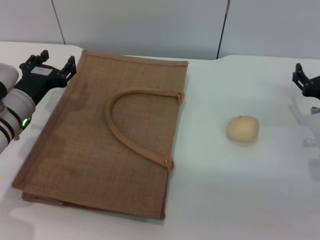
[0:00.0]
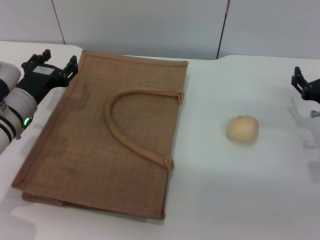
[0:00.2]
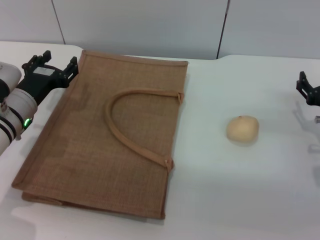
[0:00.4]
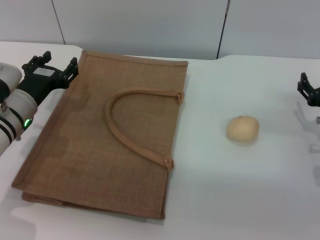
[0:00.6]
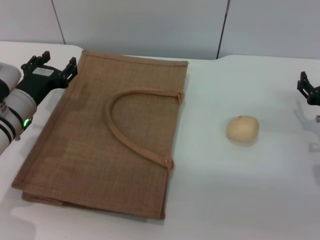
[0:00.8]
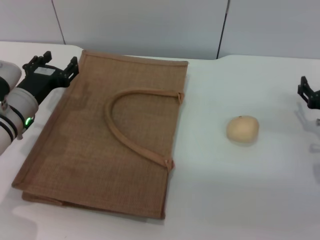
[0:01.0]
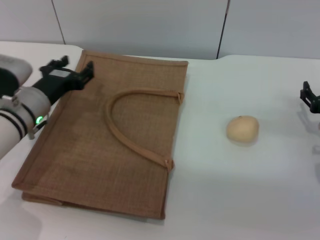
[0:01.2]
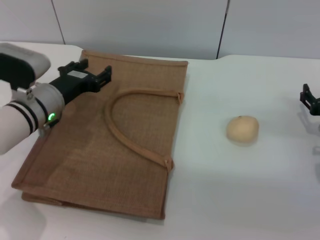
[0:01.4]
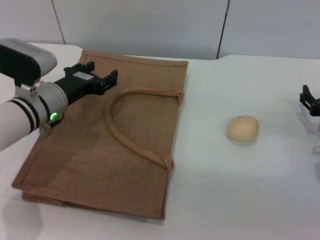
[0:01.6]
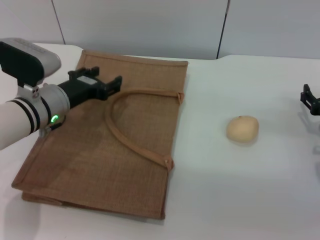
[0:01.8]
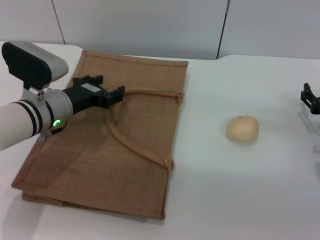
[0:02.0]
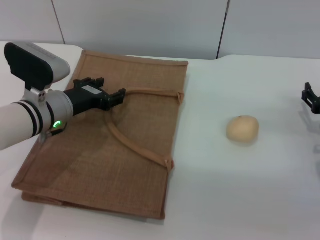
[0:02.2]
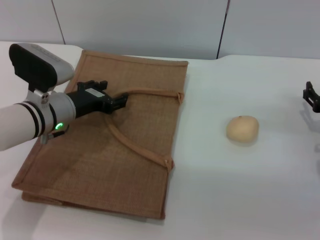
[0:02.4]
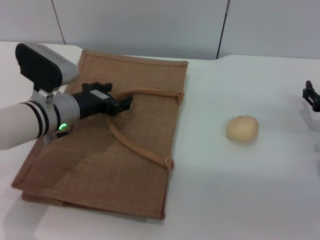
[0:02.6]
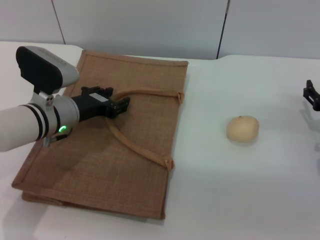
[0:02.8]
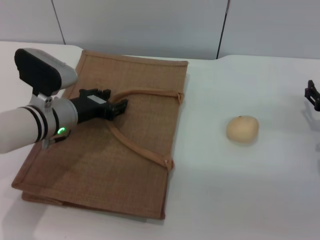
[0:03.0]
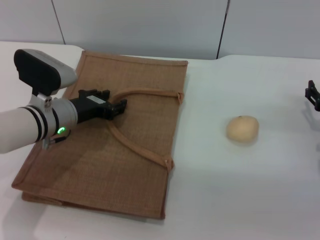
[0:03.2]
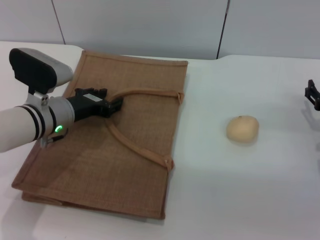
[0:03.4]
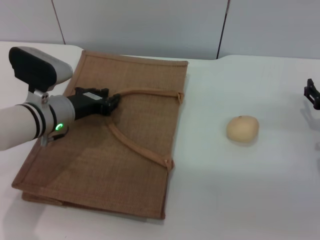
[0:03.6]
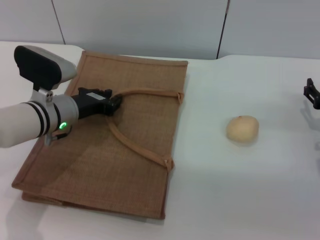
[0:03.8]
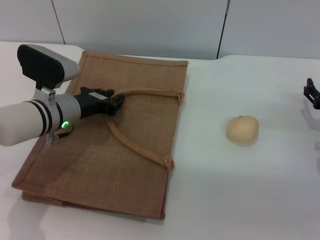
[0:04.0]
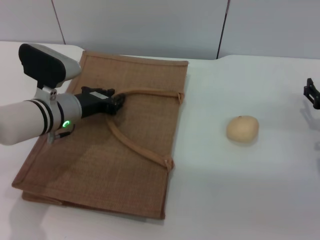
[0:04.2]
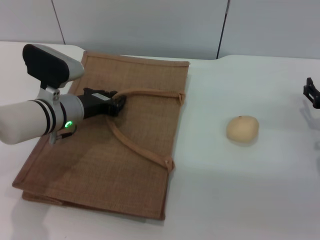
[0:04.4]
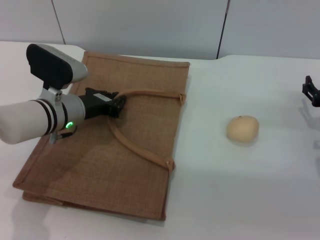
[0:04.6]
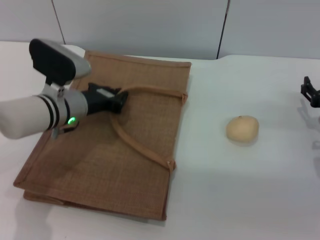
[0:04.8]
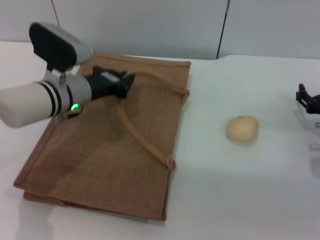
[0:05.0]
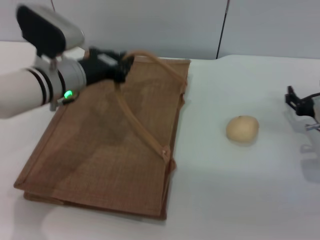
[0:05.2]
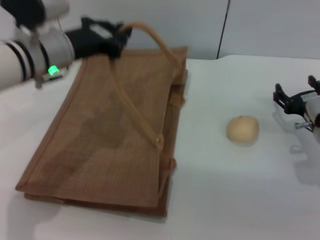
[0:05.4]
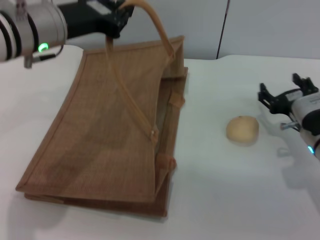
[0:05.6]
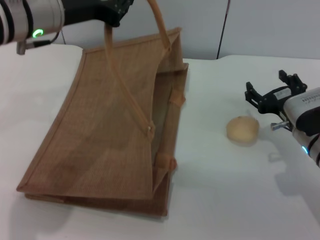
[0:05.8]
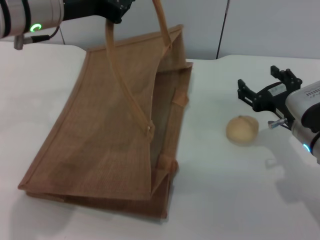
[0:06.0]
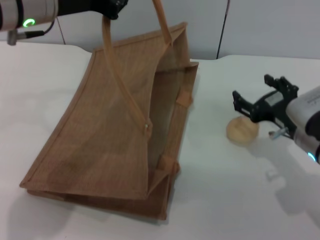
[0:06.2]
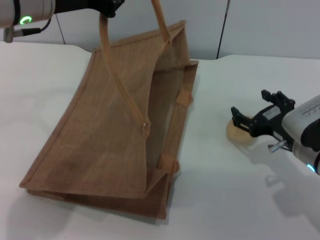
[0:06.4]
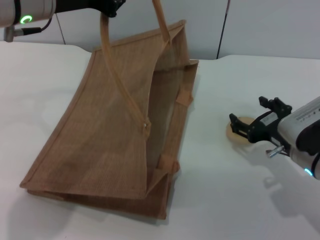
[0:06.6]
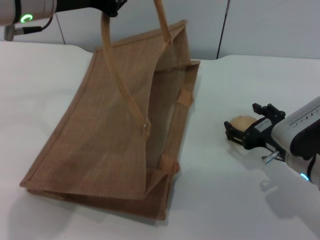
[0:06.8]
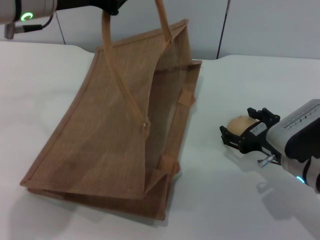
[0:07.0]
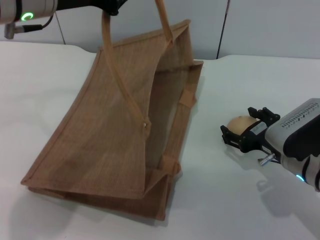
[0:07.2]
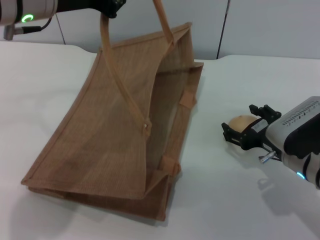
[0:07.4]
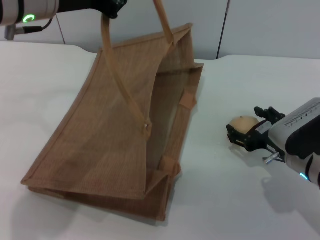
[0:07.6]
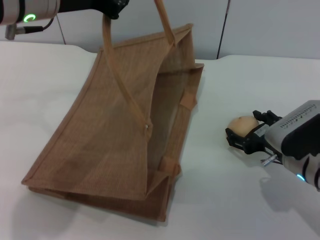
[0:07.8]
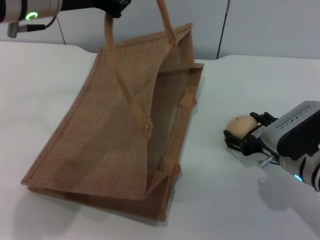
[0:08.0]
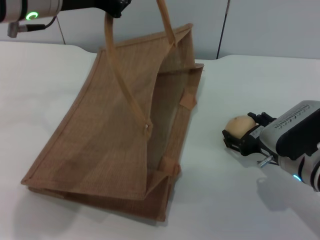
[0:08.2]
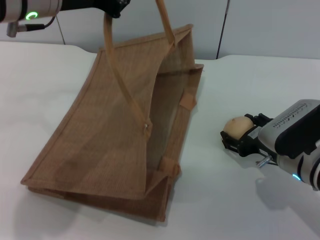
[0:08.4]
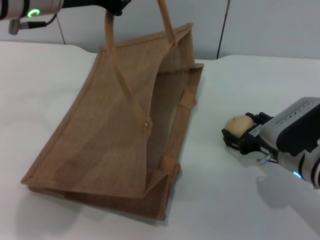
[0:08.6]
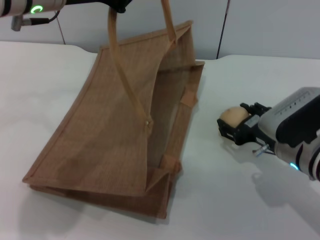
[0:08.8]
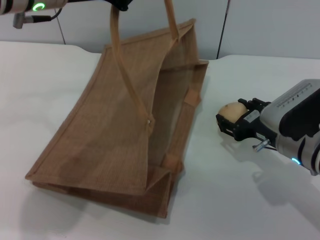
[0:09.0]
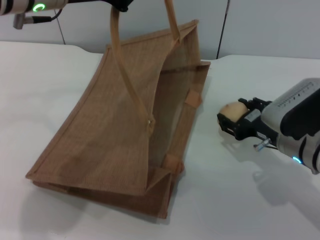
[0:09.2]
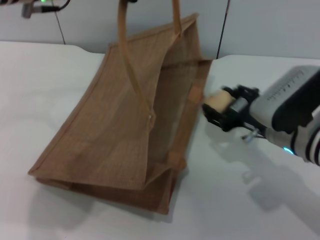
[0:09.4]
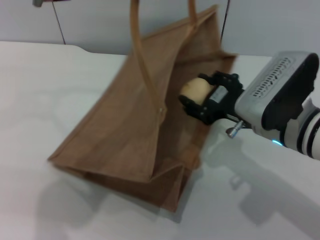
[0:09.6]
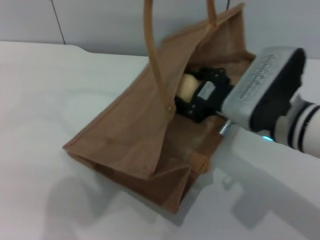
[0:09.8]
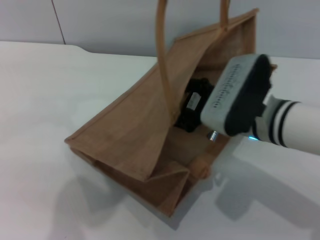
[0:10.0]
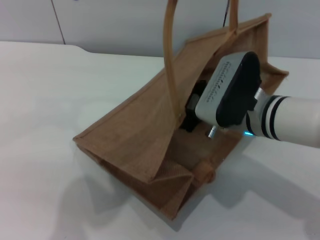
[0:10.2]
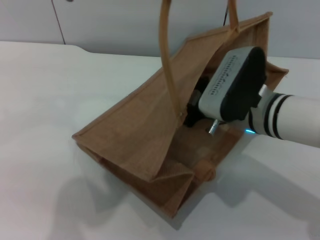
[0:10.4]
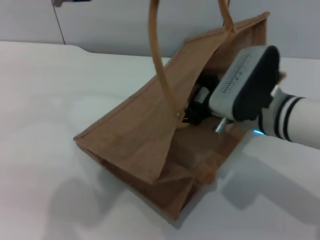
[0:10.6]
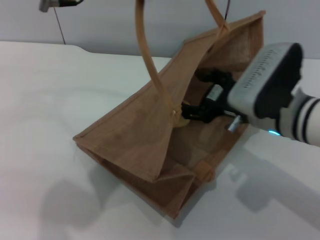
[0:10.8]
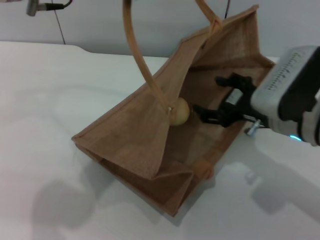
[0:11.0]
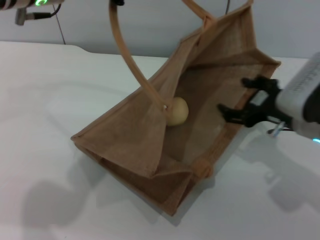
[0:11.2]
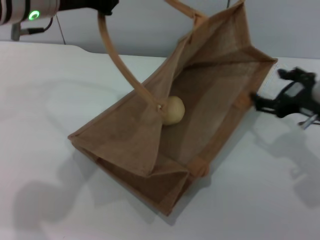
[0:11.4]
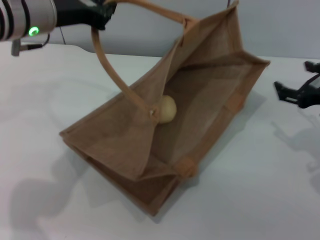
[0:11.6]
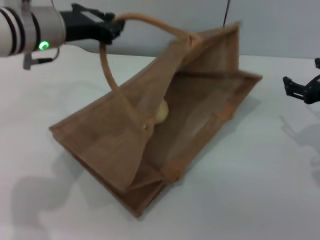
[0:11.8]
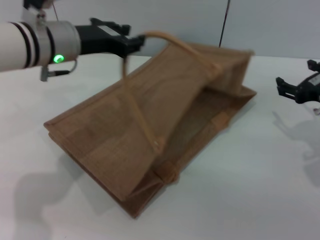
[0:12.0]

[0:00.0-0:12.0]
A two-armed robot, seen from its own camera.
Task of the whole recording: pick up the egg yolk pastry from the table and place it in the brown handbag.
Step, 0:00.0 to 0:06.0: Lift the woven bag with the left gripper to open it.
Step, 0:06.2 to 0:09.2: Pick up the egg yolk pastry with the right gripper.
Step, 0:09.4 to 0:11.0: Place the egg yolk pastry into the woven bag with the right gripper.
0:00.0 to 0:01.6: There are only small adjustments of the grippers.
0:01.6 to 0:03.0: The grippers make only small movements.
0:03.0 to 0:04.4: The left gripper closes.
0:04.4 to 0:06.0: The left gripper shifts approximately 20 cm upward. The right gripper goes roughly 10 cm to the left.
0:06.0 to 0:07.6: The grippers move only a little.
0:07.6 to 0:09.0: The right gripper closes up.
0:09.0 to 0:10.4: The left gripper heads to the right, covering approximately 5 cm, while the right gripper is displaced to the left by about 10 cm, and closes.
0:10.4 to 0:12.0: The left gripper is displaced downward and to the left by roughly 15 cm, while the right gripper is displaced to the right by some 15 cm, and opens.

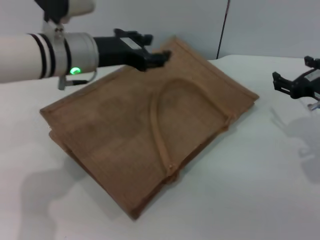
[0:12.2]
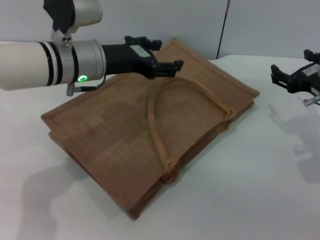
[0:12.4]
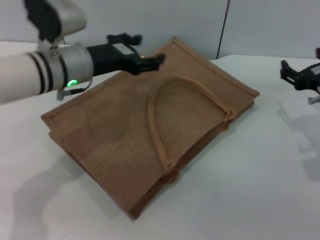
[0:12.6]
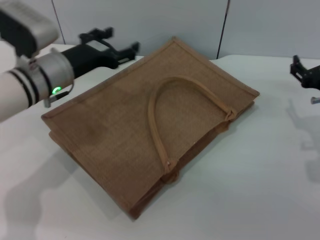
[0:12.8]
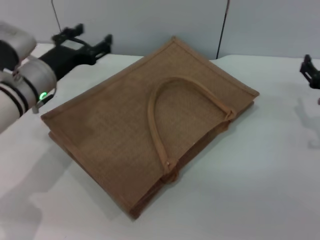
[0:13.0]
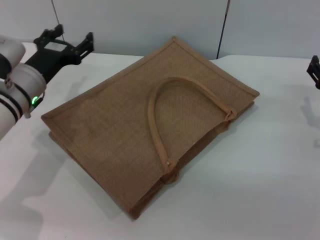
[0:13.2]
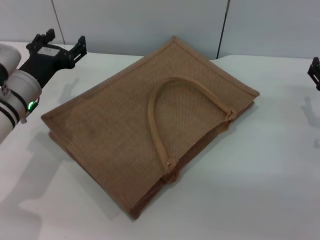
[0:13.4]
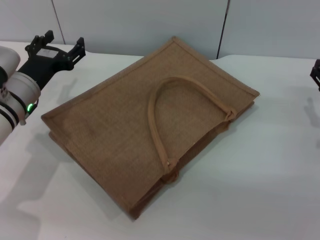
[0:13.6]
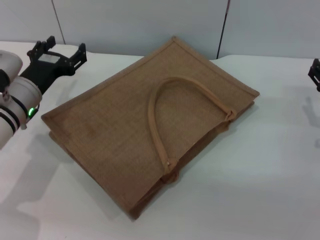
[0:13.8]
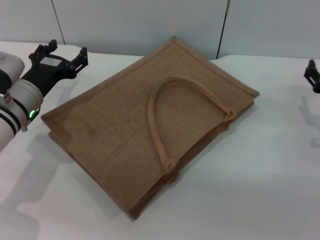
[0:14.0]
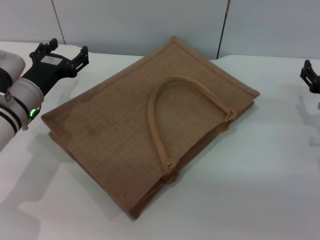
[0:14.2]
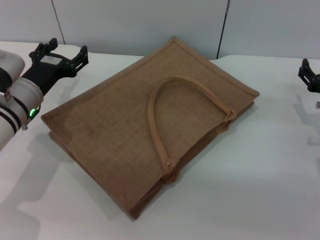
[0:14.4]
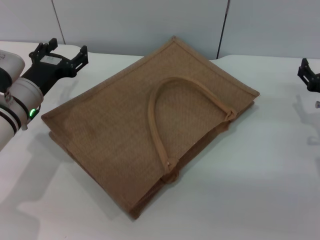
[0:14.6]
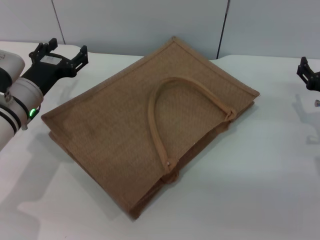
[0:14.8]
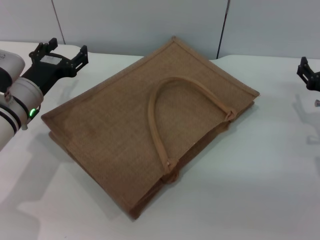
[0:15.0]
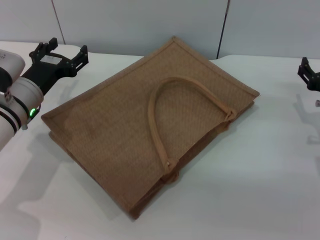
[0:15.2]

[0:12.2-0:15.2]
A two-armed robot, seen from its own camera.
Task of the whole recording: pick up the egg yolk pastry from the table and place it in the brown handbag.
0:12.2 to 0:13.8: The left gripper shifts approximately 15 cm downward and to the left, and opens, while the right gripper heads downward, covering about 5 cm.
0:13.8 to 0:15.2: The grippers stay close to where they were, moving slightly.
